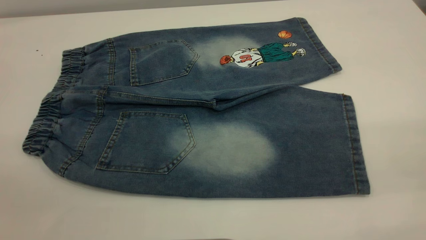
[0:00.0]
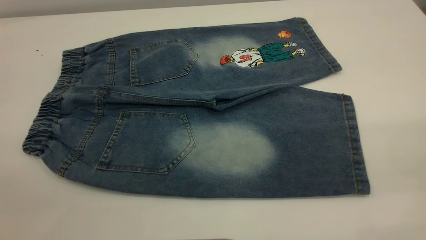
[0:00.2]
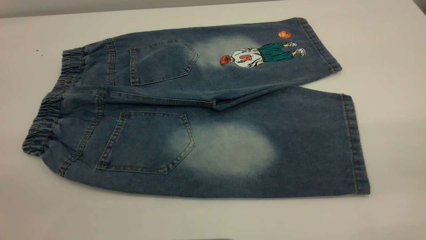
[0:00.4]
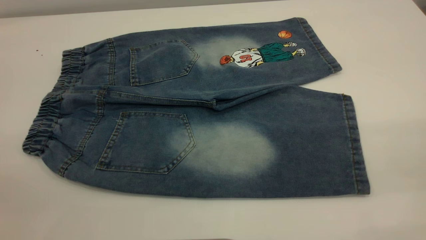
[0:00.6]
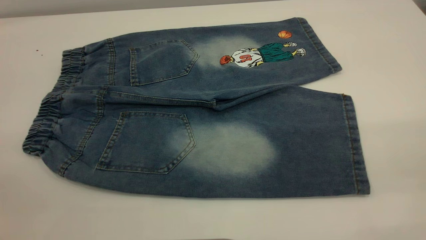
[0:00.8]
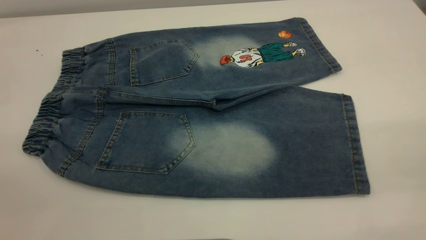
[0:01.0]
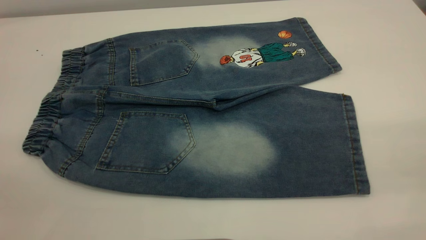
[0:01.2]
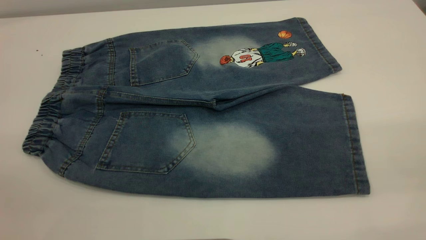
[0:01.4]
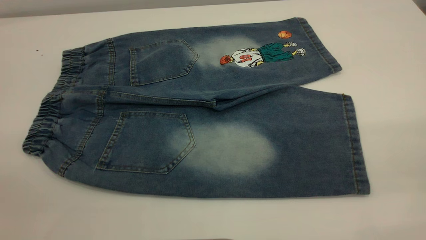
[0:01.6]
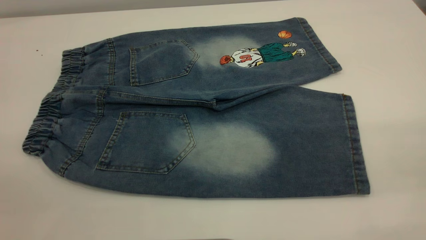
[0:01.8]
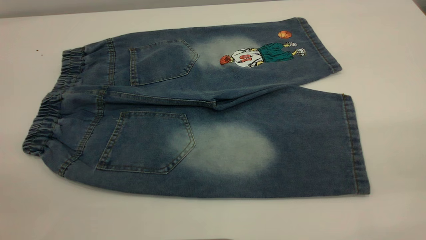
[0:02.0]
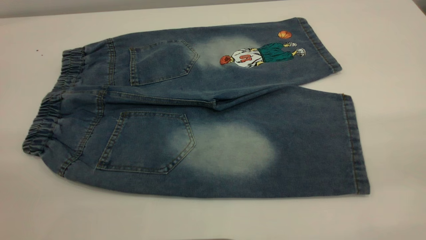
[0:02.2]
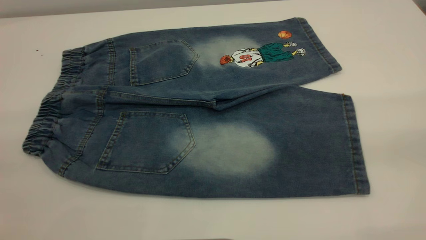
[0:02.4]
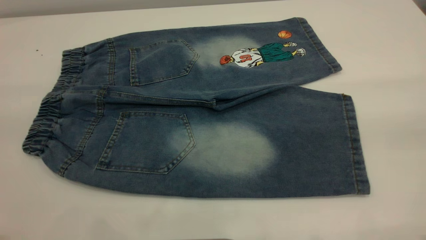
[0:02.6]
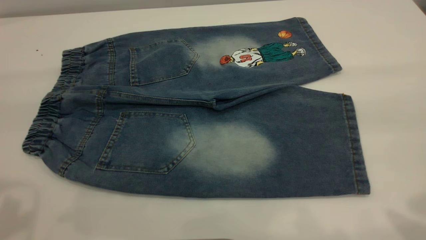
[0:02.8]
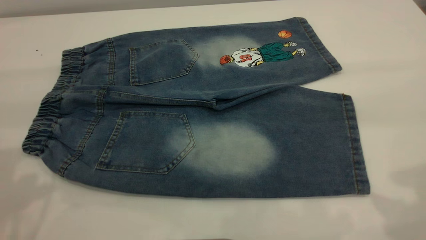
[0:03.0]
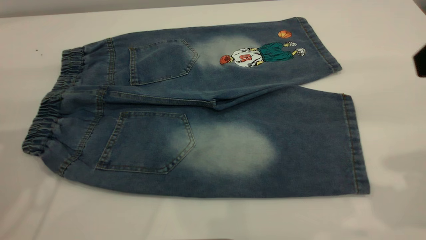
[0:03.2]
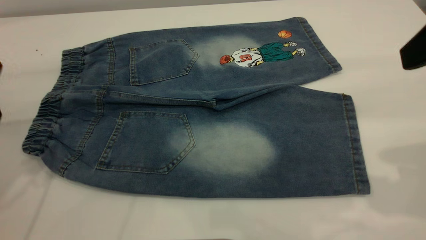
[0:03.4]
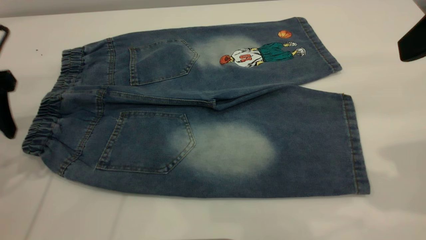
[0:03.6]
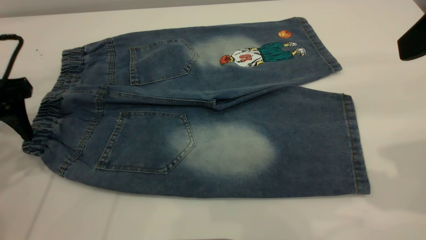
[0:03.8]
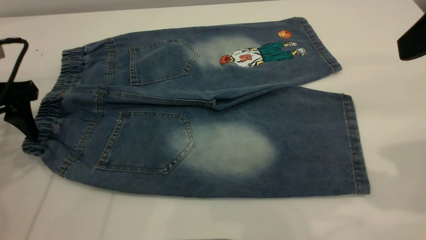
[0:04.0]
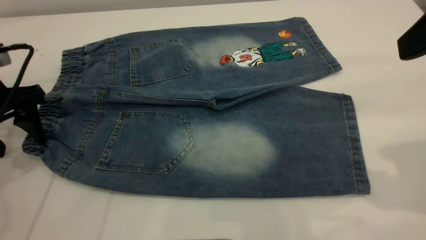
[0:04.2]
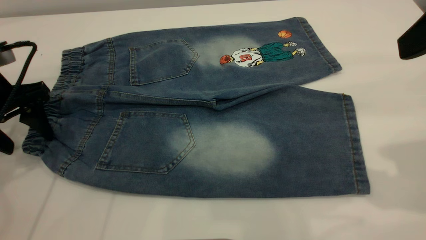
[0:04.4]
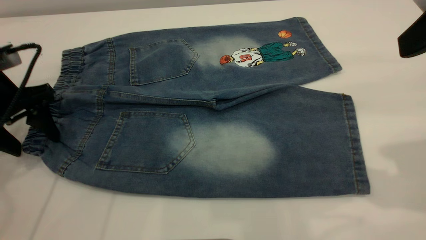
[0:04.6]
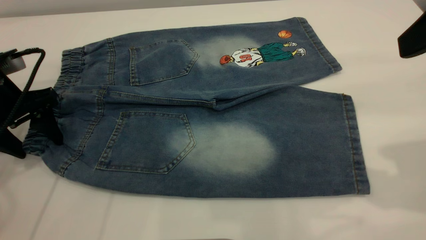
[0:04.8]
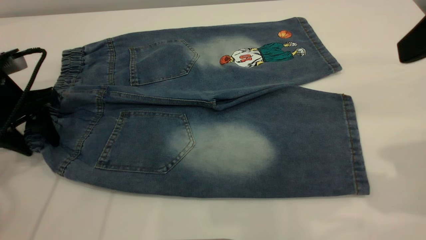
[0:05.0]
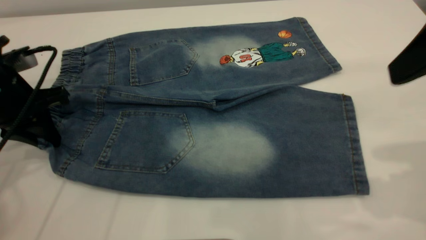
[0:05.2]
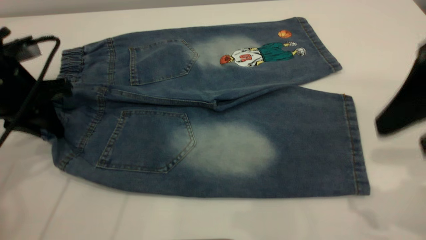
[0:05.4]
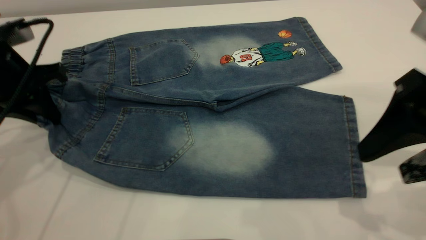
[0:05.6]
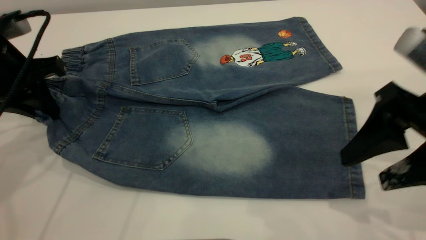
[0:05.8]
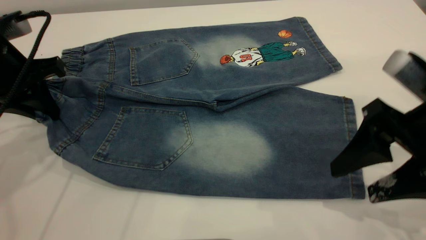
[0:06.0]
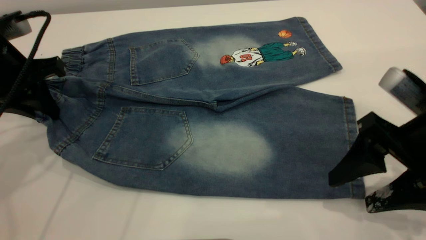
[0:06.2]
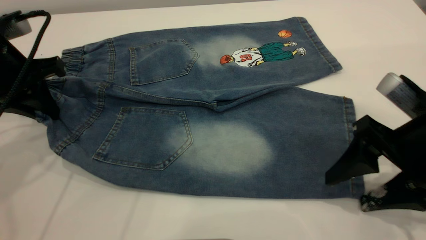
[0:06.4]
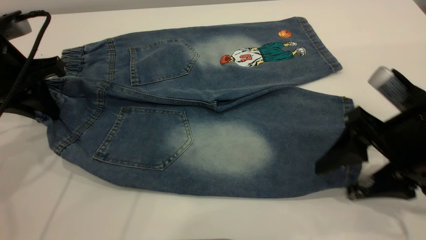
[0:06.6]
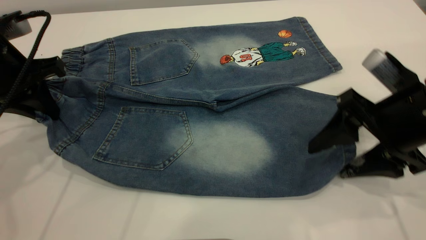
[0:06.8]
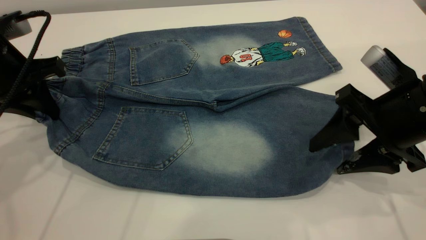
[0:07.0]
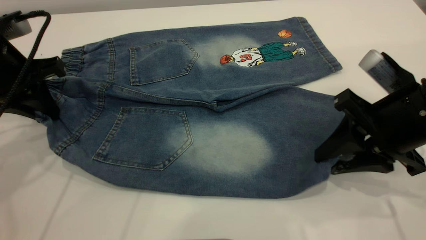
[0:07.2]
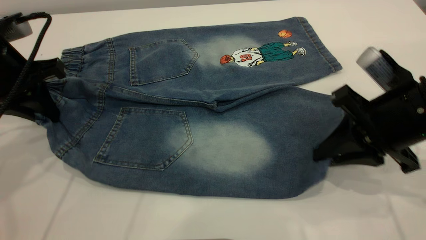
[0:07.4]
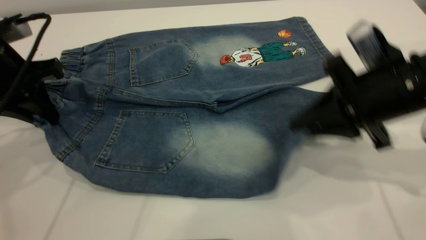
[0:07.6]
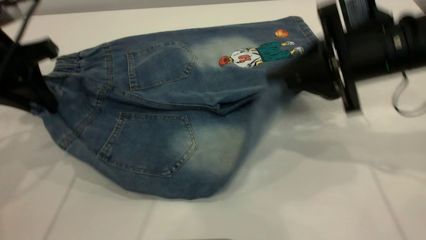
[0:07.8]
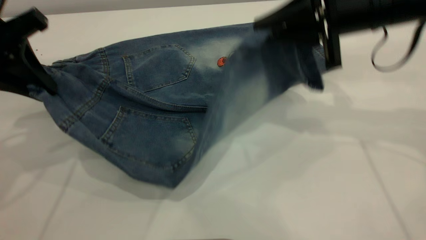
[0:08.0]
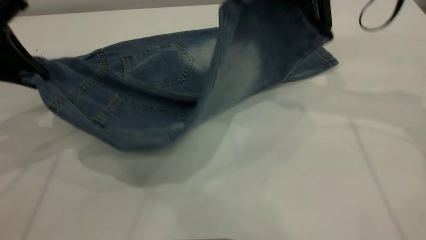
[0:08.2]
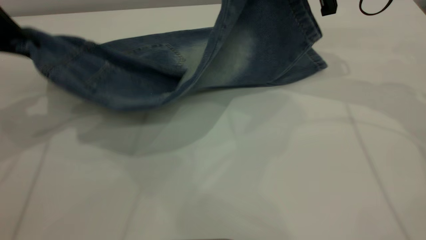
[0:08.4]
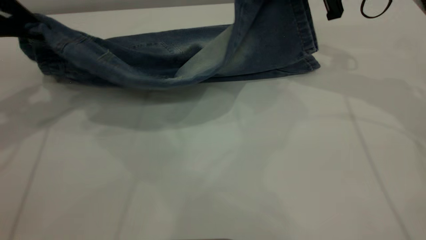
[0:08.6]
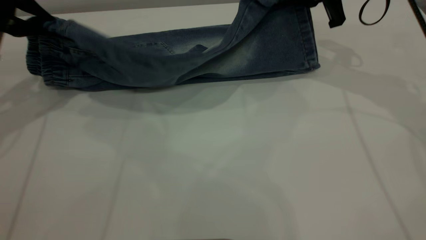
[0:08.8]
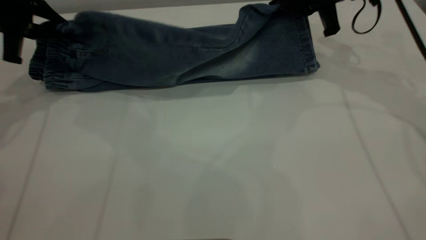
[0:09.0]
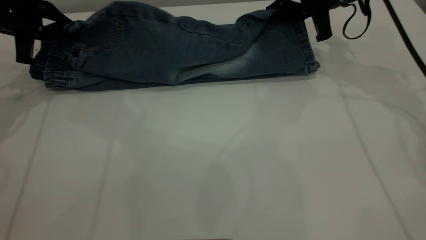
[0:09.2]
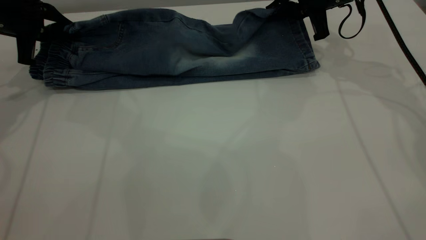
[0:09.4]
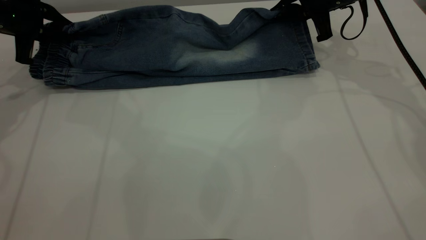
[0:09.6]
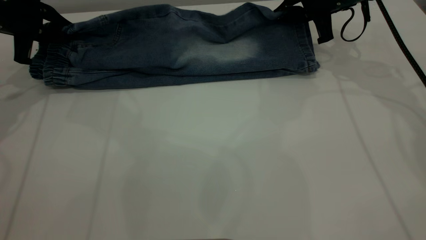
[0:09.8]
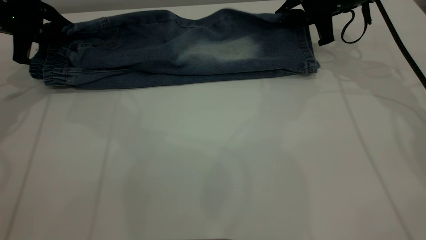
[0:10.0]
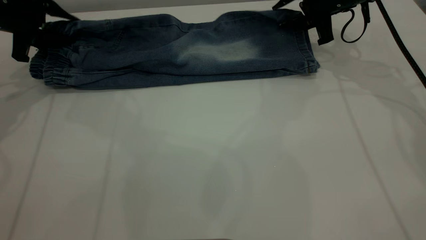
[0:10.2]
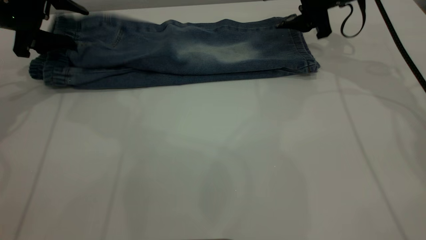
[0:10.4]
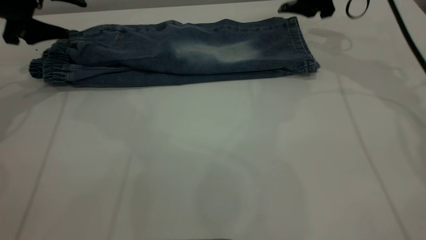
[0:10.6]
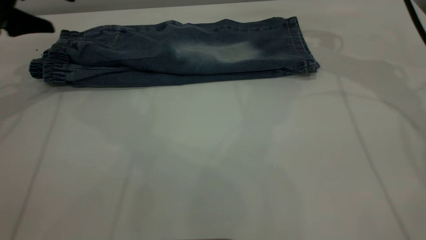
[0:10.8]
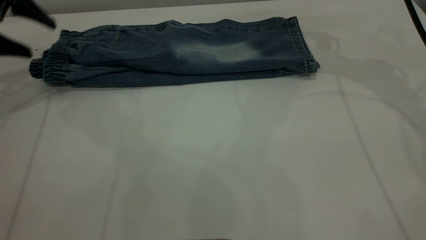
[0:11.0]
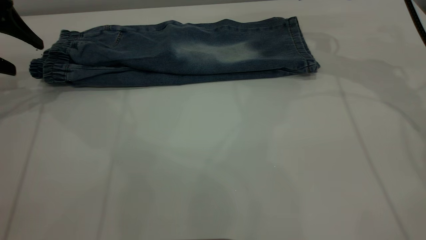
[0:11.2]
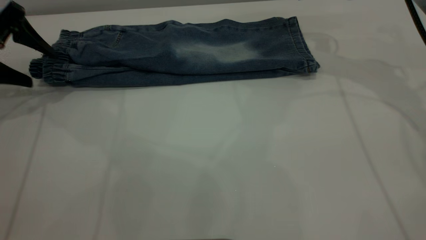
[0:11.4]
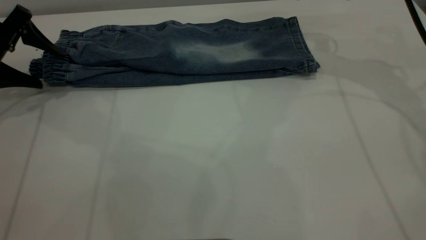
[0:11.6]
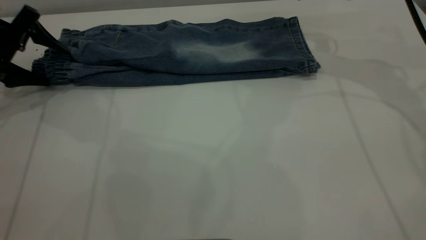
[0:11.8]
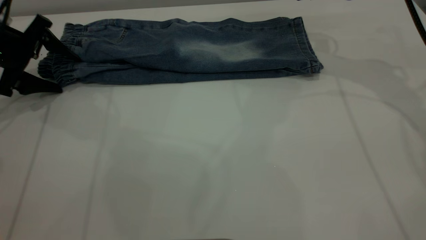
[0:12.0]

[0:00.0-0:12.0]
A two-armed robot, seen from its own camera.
Step, 0:00.0 to 0:10.6: Fold the bottom of the pants upward.
0:00.0 to 0:01.6: Both grippers stay put.
0:03.0 to 0:04.4: The left gripper goes some 15 cm downward and forward.
0:04.4 to 0:06.0: The left gripper closes up. The right gripper goes about 15 cm downward.
0:06.0 to 0:07.6: The right gripper moves forward, some 5 cm, and closes.
0:07.6 to 0:09.0: The right gripper moves forward, some 20 cm, while the left gripper is displaced forward and to the left by some 10 cm.
0:09.0 to 0:10.4: The right gripper opens its fingers. The left gripper opens.
0:10.4 to 0:12.0: The right gripper goes roughly 5 cm upward. Meanwhile the left gripper shifts by approximately 5 cm.

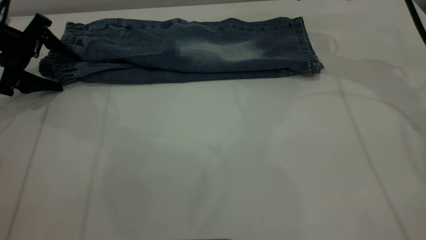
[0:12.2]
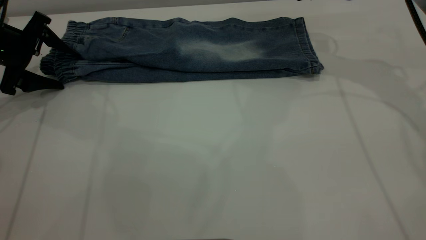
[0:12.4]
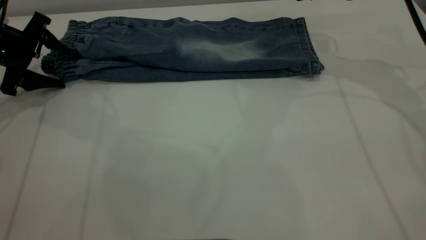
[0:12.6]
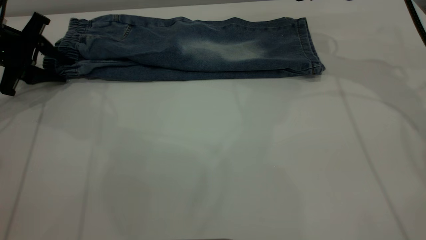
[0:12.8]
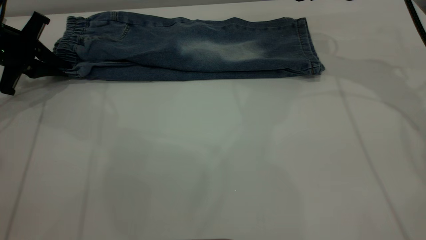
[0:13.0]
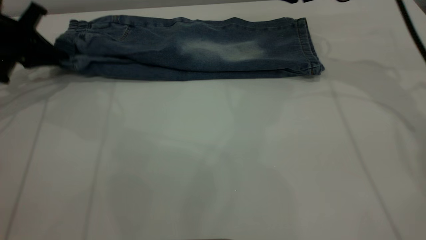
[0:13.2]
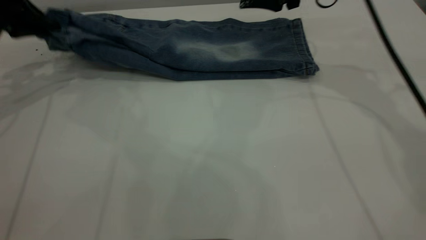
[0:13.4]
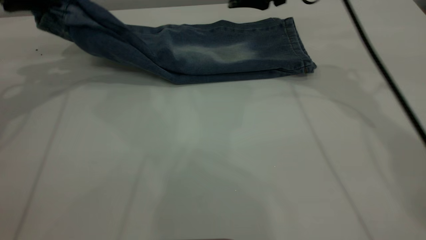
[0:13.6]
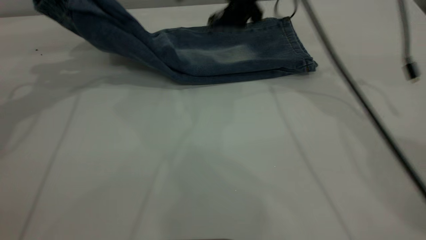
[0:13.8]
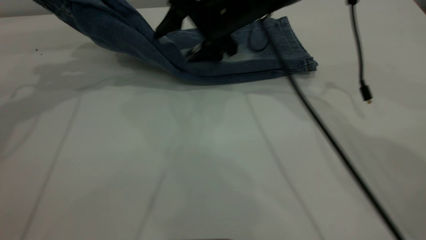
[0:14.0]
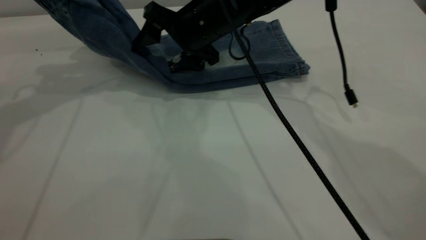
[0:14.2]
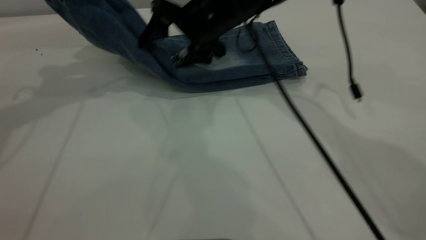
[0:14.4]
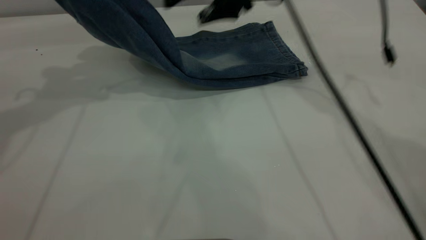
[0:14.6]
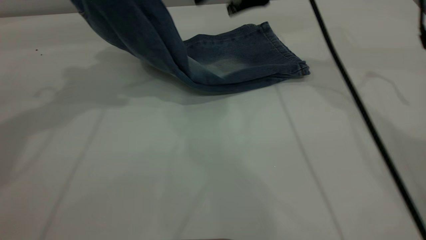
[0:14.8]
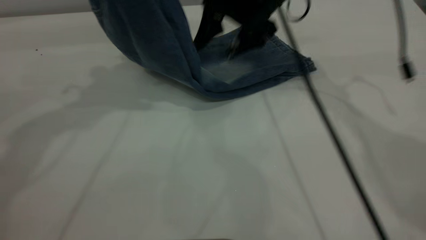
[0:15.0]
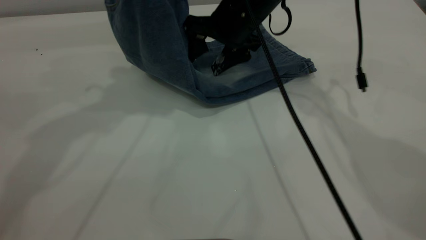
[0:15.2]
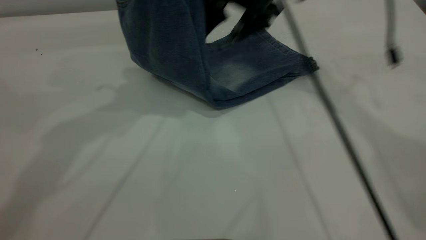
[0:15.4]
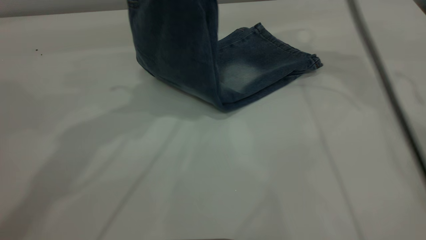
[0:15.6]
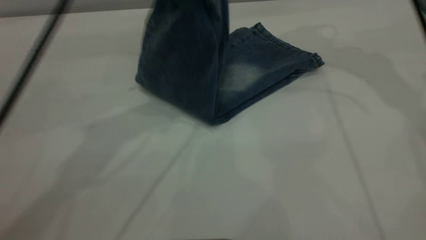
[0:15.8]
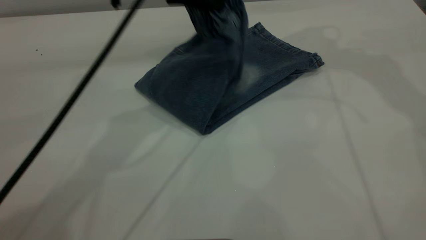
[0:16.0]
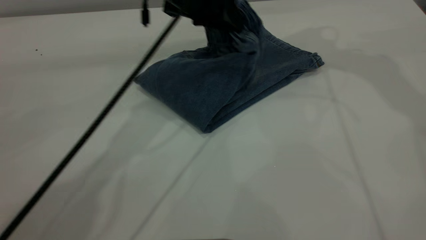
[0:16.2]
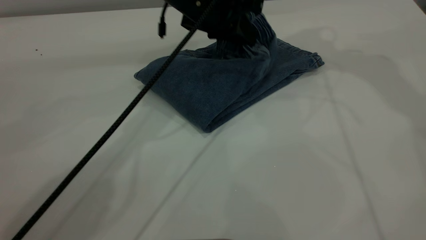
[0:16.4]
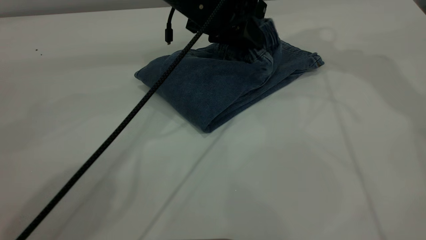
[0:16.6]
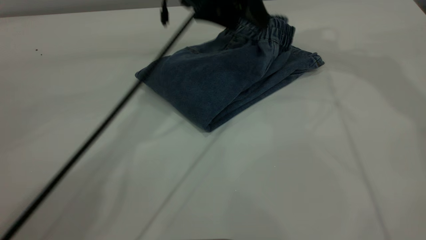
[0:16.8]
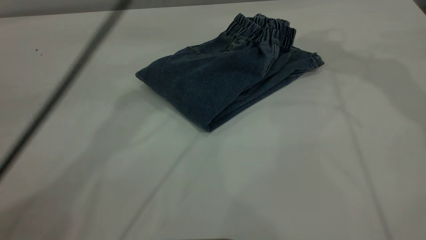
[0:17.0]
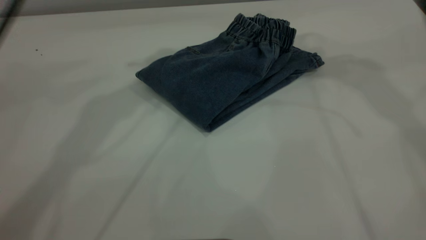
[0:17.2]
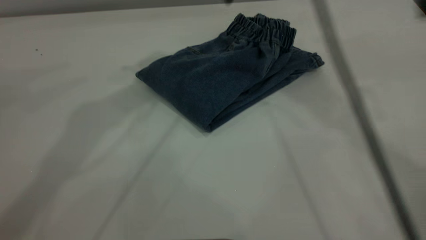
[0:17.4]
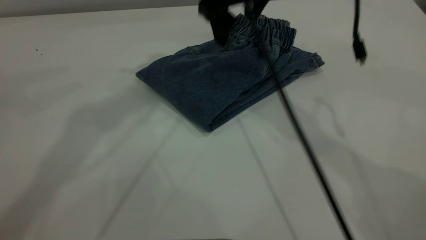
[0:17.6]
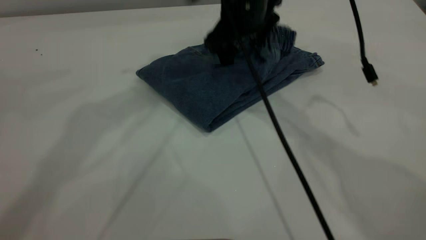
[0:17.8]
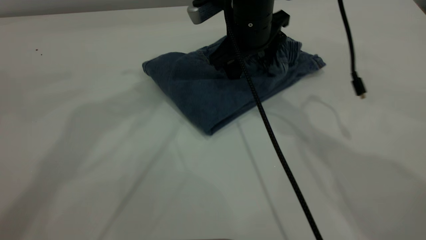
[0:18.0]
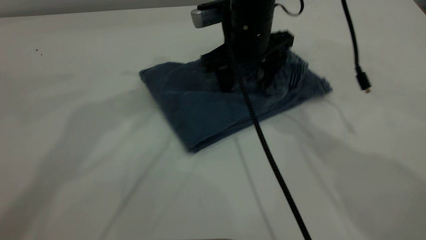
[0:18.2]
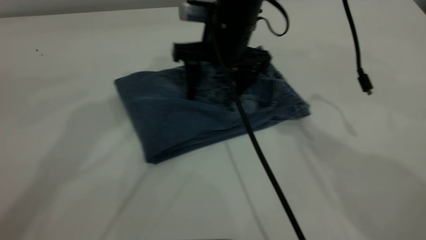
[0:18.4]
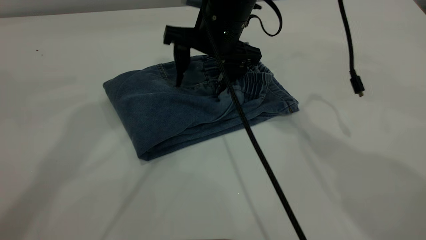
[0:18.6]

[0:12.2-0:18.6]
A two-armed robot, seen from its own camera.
Step, 0:12.2 to 0:17.2: Fold the pants from left to right.
0:12.2 to 0:13.8: The right gripper shifts some 10 cm to the left, while the left gripper goes roughly 15 cm upward, and closes.
0:13.8 to 0:15.4: The right gripper goes left and right, roughly 10 cm each way, reversing 3 times; the left gripper is displaced to the right and upward by roughly 15 cm.
0:15.4 to 0:17.0: The left gripper travels to the right and forward by approximately 10 cm, travels downward and back again, about 15 cm each way, and opens its fingers. The right gripper heads upward and to the right, covering some 15 cm.
0:17.0 to 0:18.6: The left gripper moves upward, approximately 10 cm, while the right gripper travels downward and to the left by some 25 cm.
